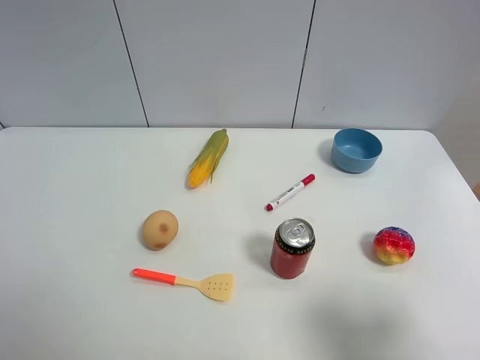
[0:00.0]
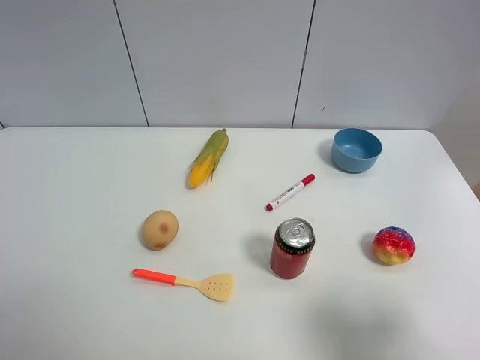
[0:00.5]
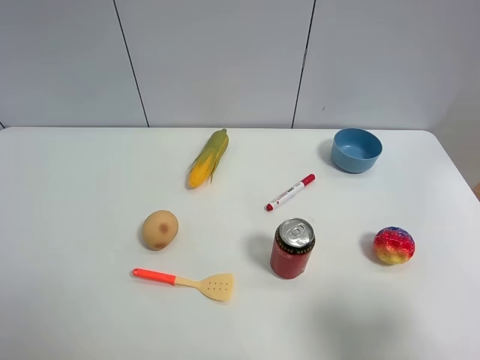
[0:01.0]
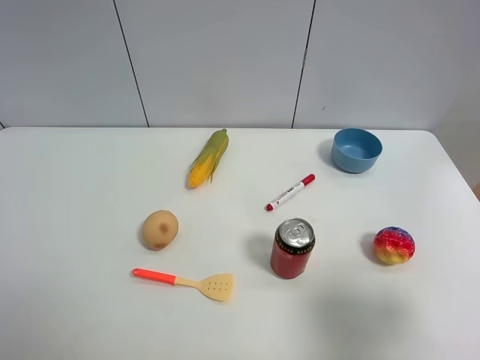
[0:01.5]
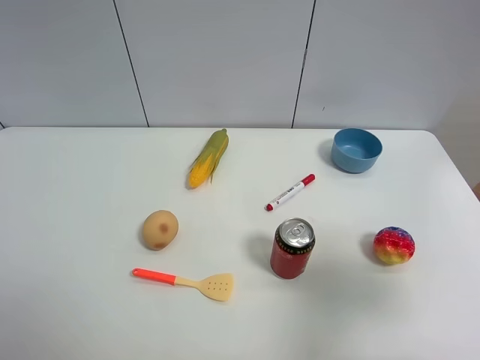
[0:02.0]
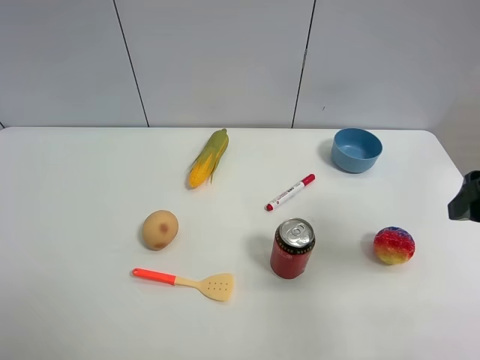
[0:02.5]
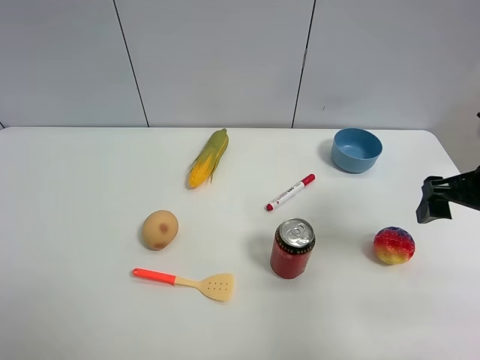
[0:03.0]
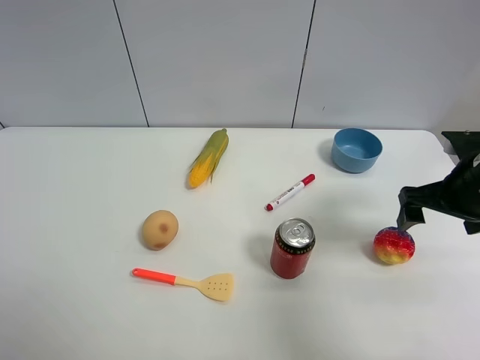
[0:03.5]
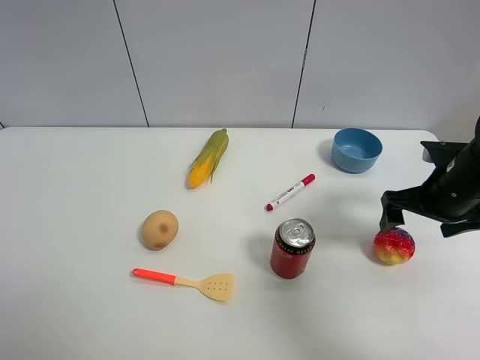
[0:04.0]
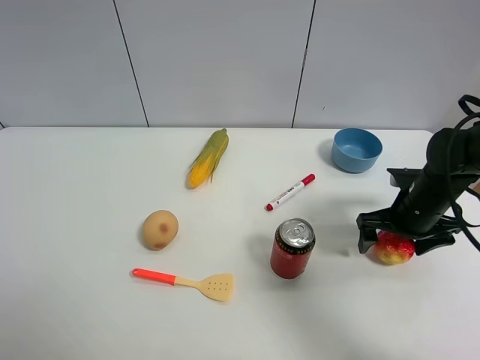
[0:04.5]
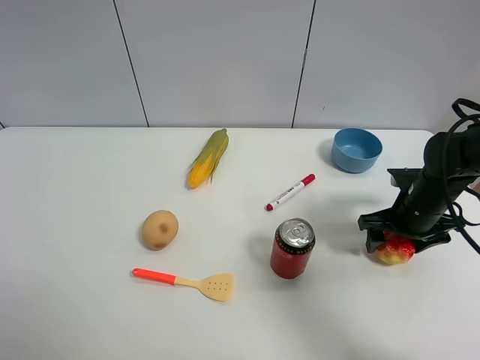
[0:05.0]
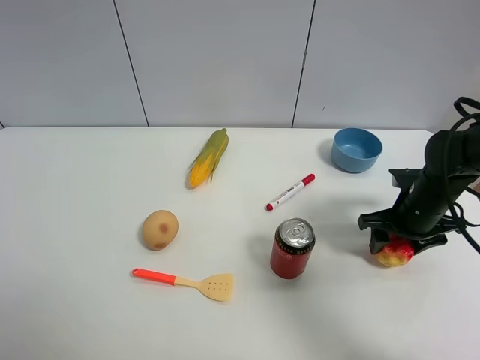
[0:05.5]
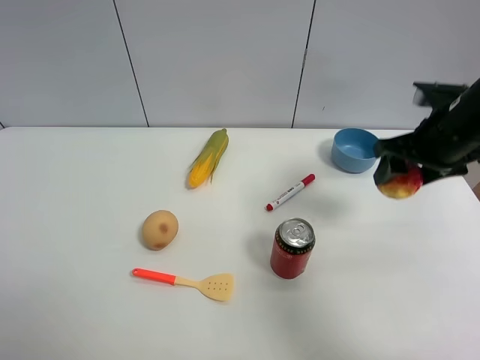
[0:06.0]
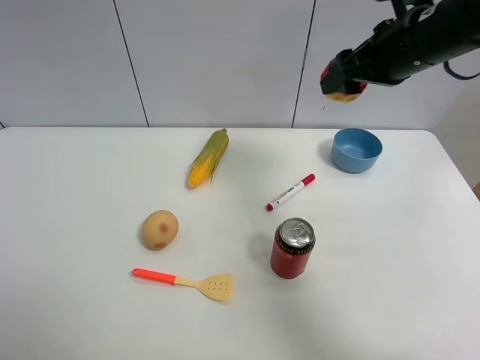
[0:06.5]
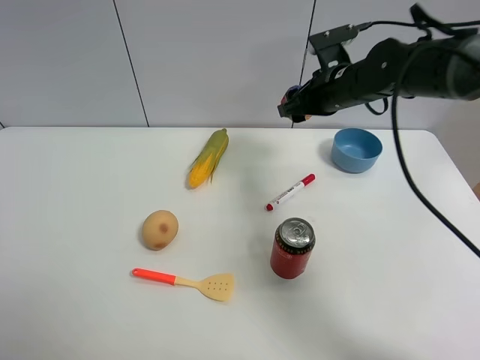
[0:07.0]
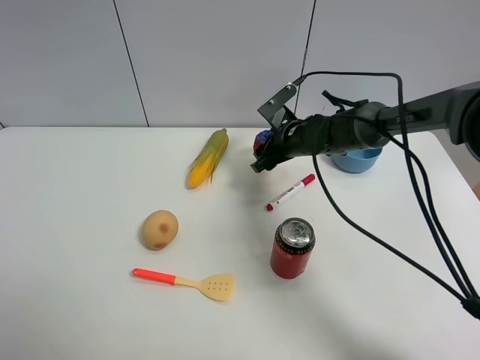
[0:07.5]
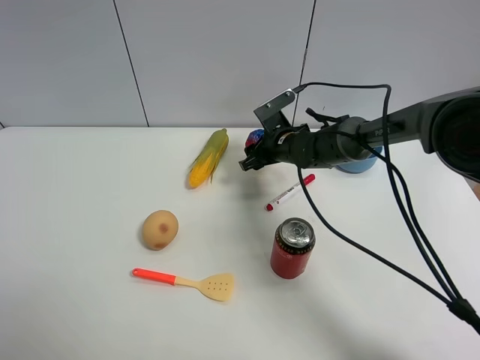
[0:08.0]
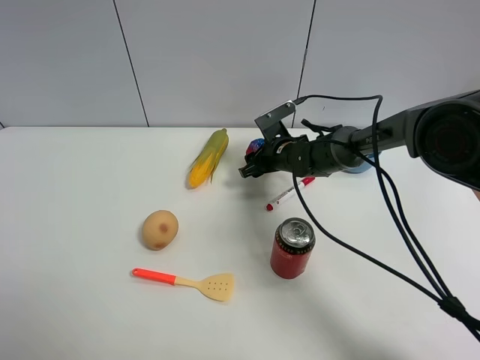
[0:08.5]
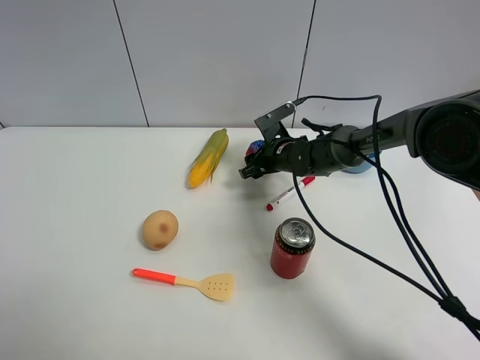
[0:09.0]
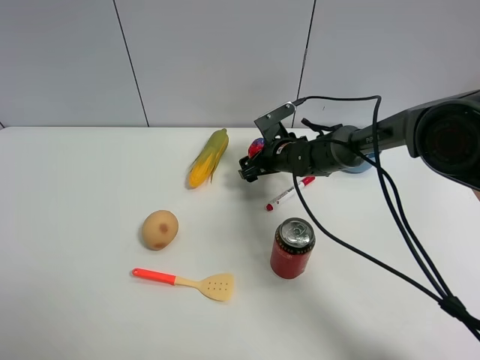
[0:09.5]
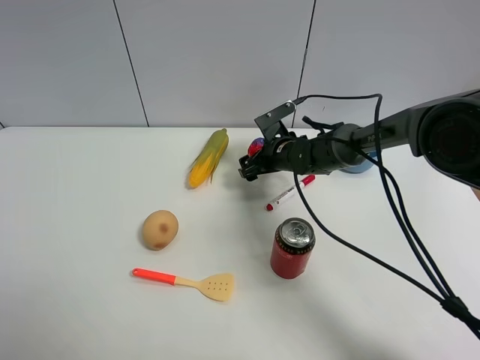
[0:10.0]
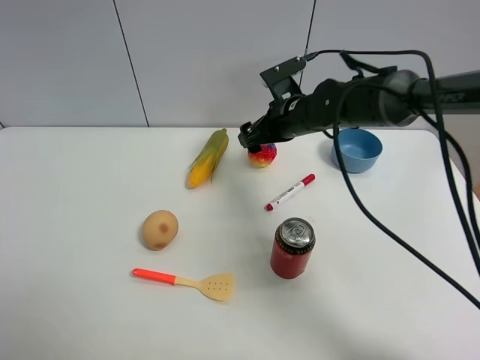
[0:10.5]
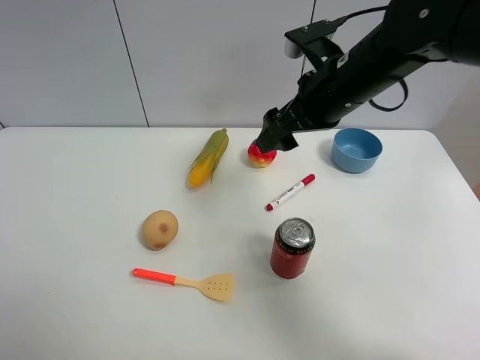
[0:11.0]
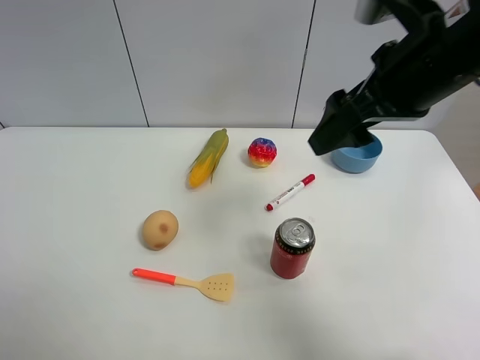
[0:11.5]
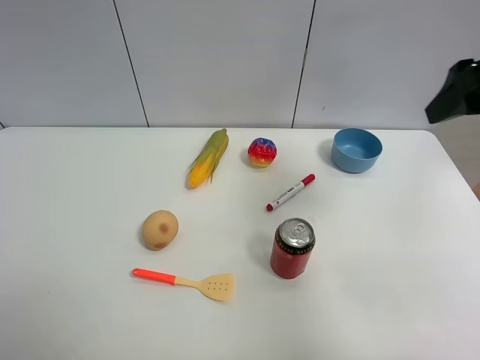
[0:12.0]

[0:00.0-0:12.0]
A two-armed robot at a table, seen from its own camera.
Task of the whole recording: the gripper move the object.
Step, 0:00.0 to 0:05.0: Grasp the colorful ball with the right gripper.
Step, 0:05.5 to 0:10.0: Place the colorful ball on the table with the right gripper.
0:00.0 to 0:02.0: The right gripper heads forward, covering about 10 cm.
0:02.0 to 0:04.0: The right gripper moves forward and downward, about 20 cm.
0:04.0 to 0:06.0: The right gripper is displaced upward by some 10 cm, and closes its fingers.
0:06.0 to 0:08.0: The right gripper is displaced downward, to the left and forward by some 30 cm.
0:08.0 to 0:10.0: The right gripper opens up.
0:10.0 to 0:12.0: The right gripper moves upward, to the right and backward, approximately 40 cm.

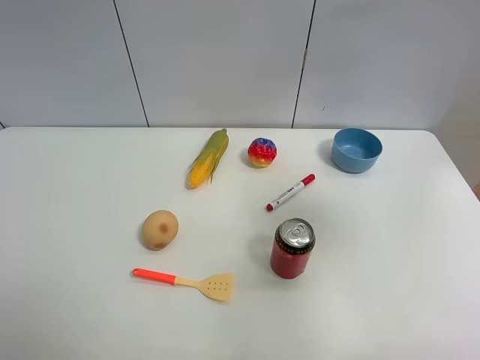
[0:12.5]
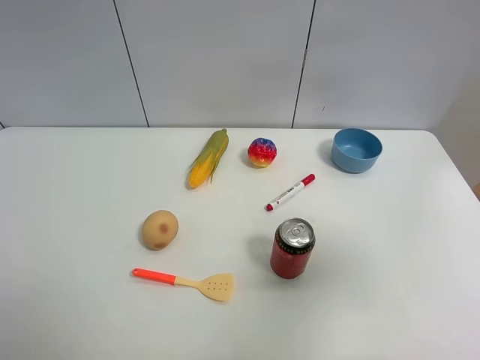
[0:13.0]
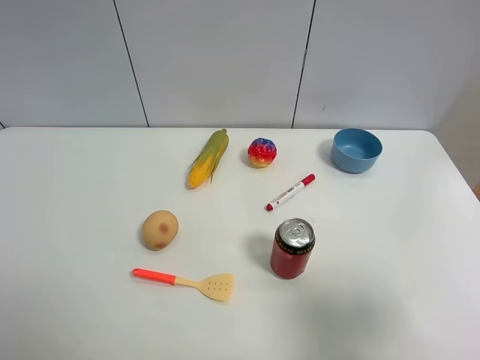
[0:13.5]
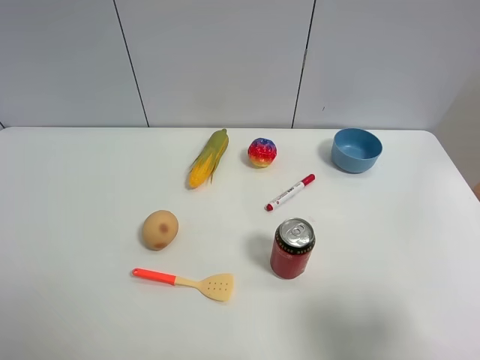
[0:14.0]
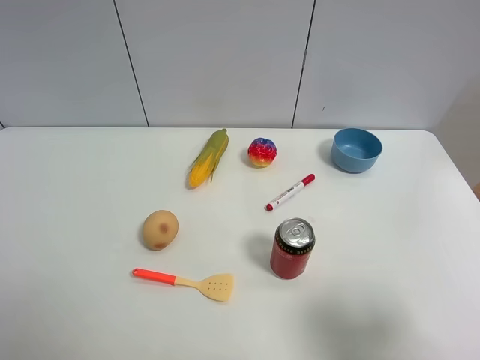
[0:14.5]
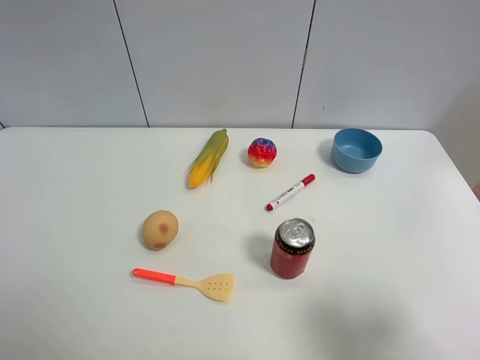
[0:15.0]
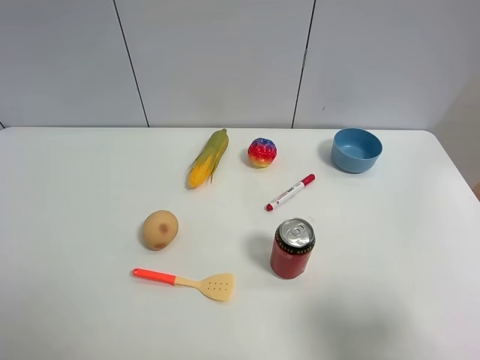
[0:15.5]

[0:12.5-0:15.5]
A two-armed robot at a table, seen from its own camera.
Task of the whole recording: the gripper move the object.
0:12.5 to 0:14.0: The right gripper travels downward and backward by roughly 20 cm.
0:14.0 to 0:15.5: Both grippers stay put.

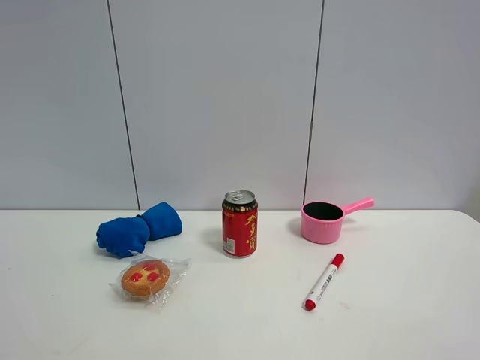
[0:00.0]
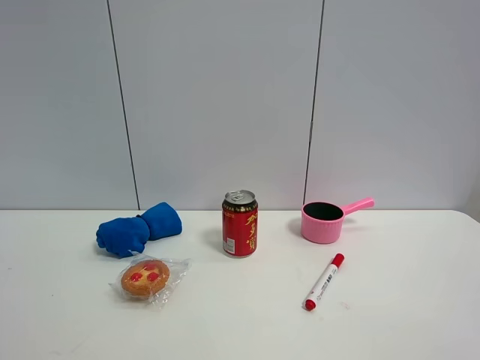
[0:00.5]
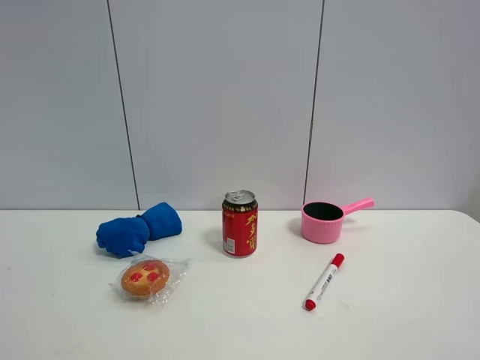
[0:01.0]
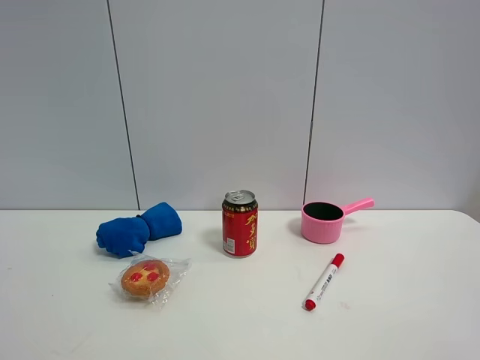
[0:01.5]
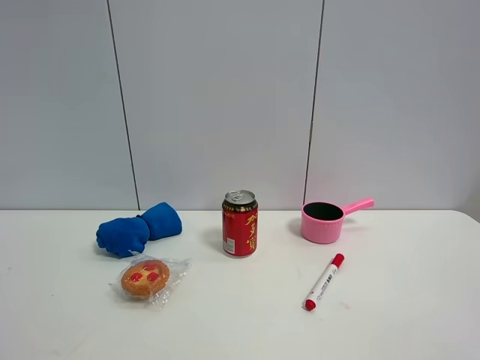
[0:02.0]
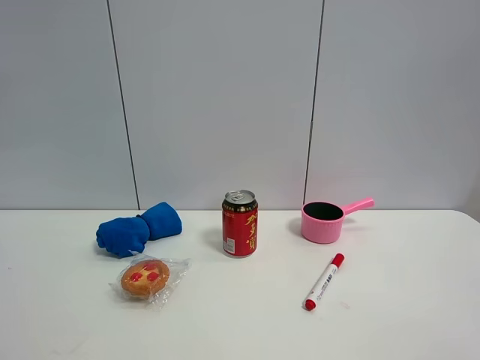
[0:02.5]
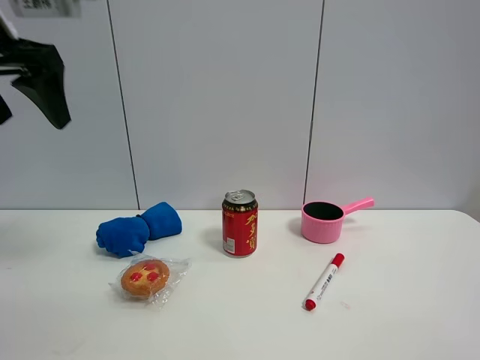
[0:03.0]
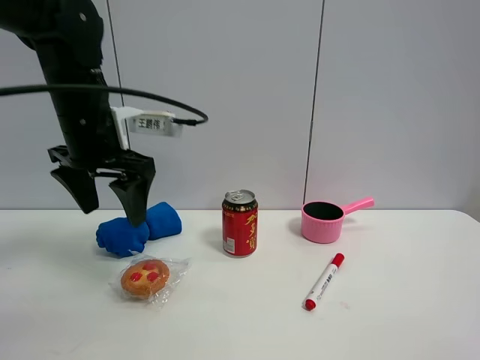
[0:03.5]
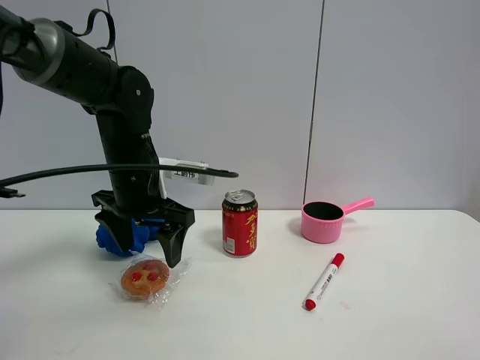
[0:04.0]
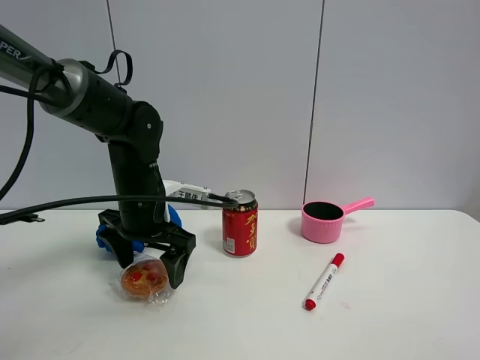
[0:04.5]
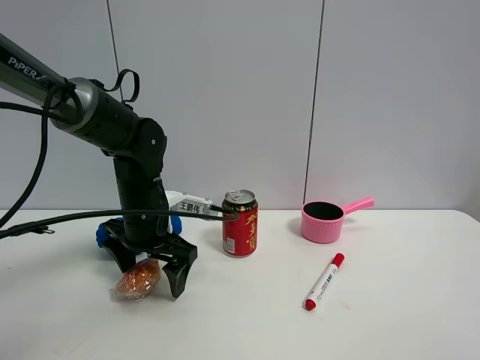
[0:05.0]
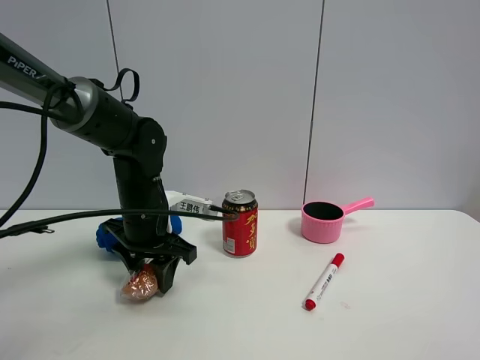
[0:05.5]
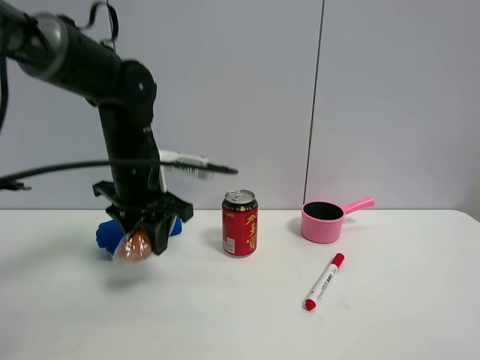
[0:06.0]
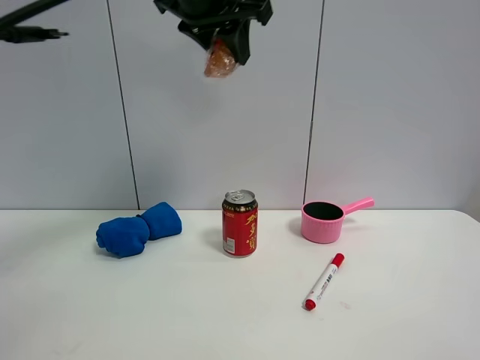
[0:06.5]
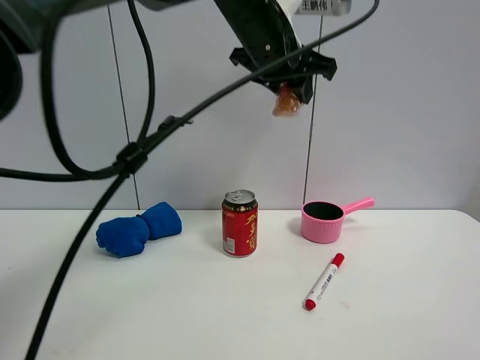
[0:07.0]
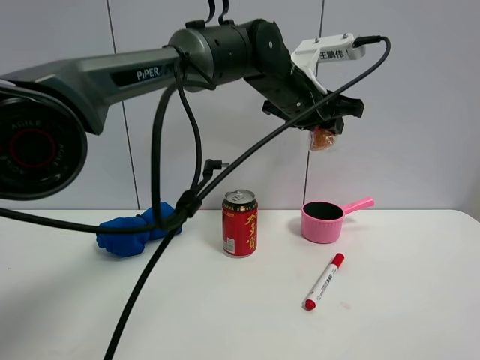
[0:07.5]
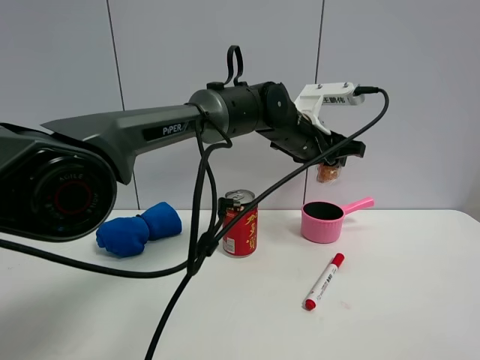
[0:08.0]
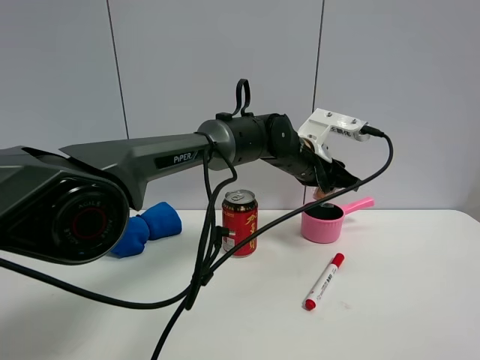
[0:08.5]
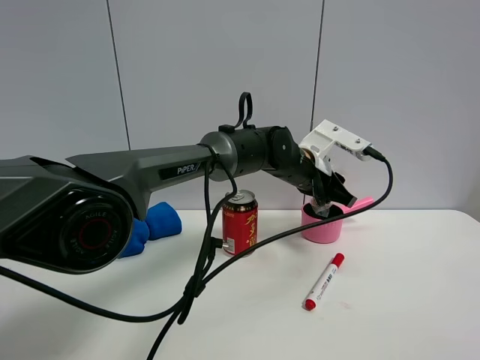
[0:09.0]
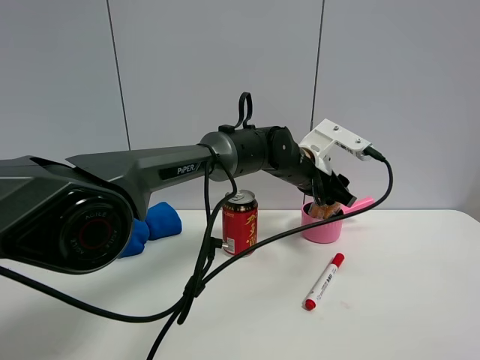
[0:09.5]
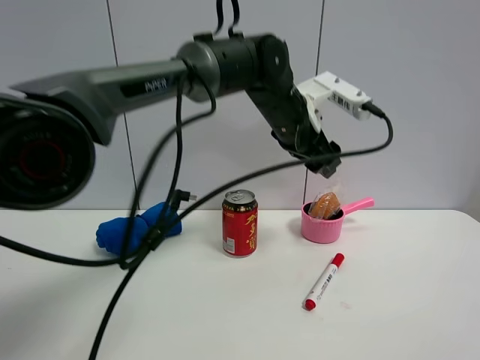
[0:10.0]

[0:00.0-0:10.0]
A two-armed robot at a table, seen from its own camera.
Task of the whole recording: the gripper move the object.
Step, 0:00.0 to 0:05.5: Grasp the egg tart with the left gripper.
Step, 0:06.0 to 0:09.5: Place the egg tart into the pink pot with the left gripper.
0:02.0 to 0:04.0: The left gripper travels forward, to the right and downward by about 50 cm.
0:04.0 to 0:06.0: The left gripper closes its fingers.
0:06.0 to 0:08.0: The left gripper shifts about 20 cm to the right.
0:08.0 to 0:10.0: The left gripper goes about 5 cm upward, and opens up.
